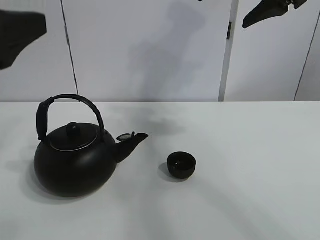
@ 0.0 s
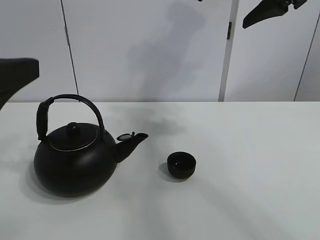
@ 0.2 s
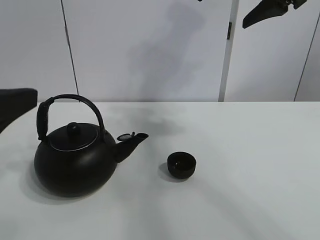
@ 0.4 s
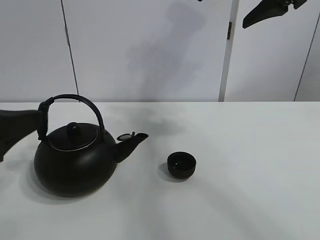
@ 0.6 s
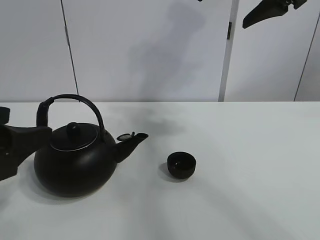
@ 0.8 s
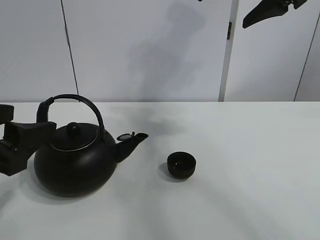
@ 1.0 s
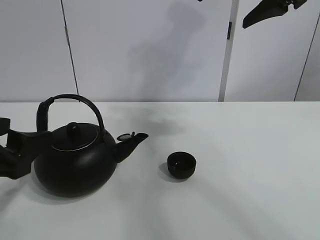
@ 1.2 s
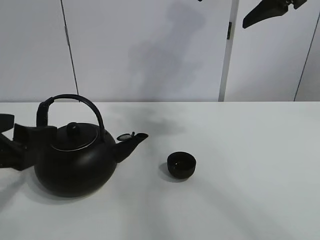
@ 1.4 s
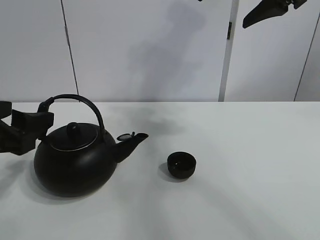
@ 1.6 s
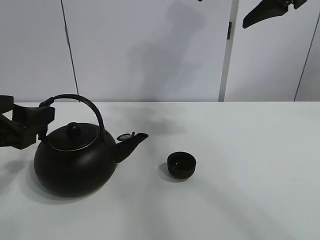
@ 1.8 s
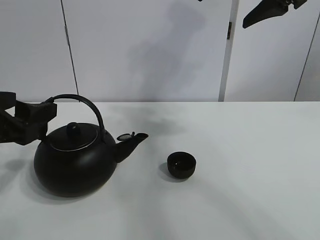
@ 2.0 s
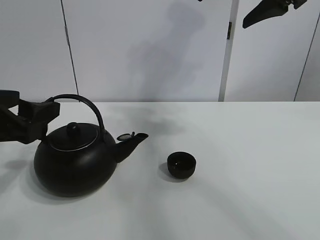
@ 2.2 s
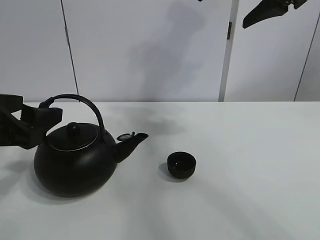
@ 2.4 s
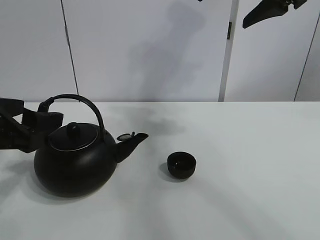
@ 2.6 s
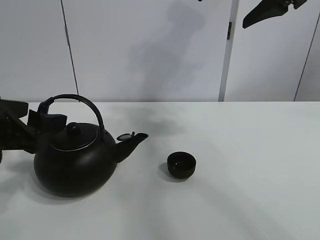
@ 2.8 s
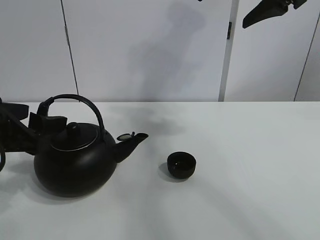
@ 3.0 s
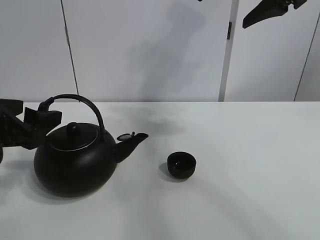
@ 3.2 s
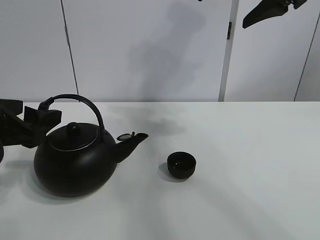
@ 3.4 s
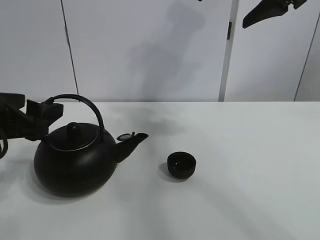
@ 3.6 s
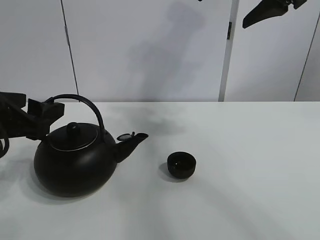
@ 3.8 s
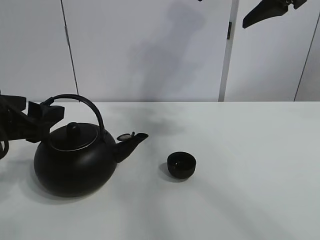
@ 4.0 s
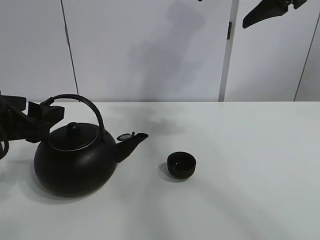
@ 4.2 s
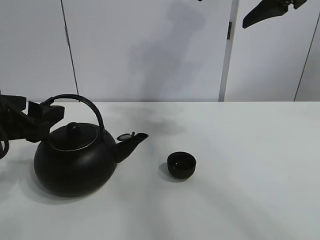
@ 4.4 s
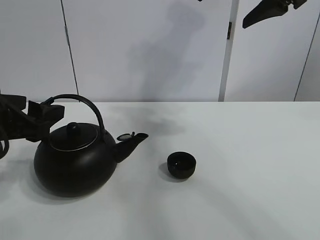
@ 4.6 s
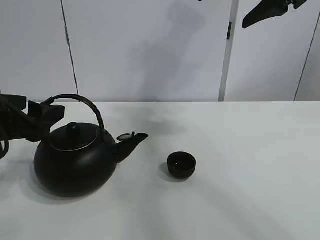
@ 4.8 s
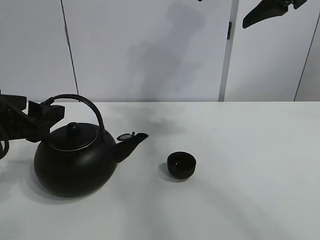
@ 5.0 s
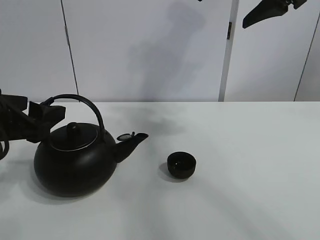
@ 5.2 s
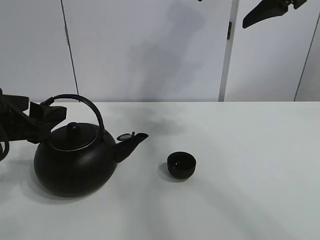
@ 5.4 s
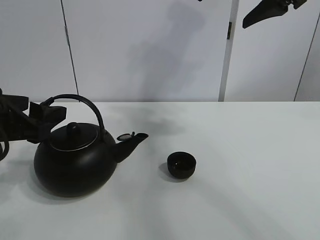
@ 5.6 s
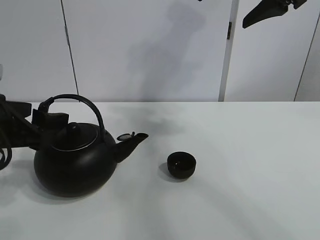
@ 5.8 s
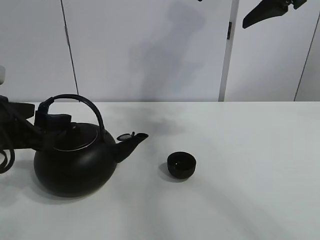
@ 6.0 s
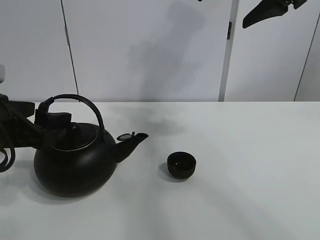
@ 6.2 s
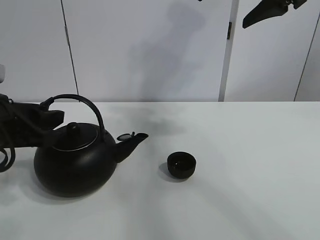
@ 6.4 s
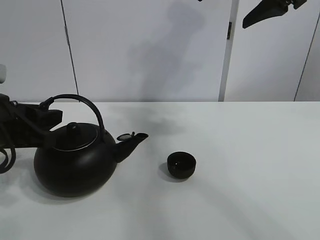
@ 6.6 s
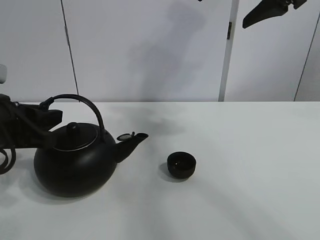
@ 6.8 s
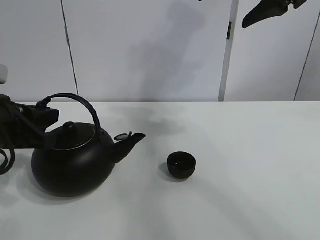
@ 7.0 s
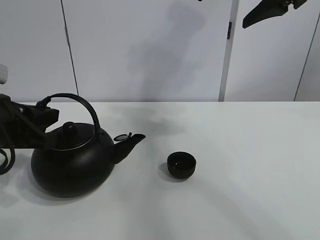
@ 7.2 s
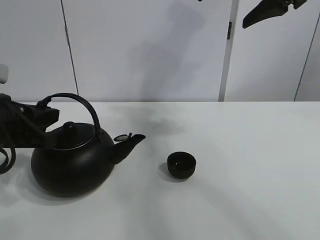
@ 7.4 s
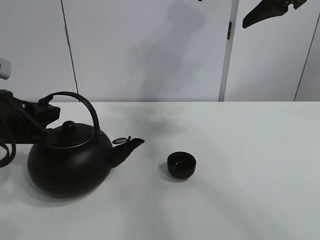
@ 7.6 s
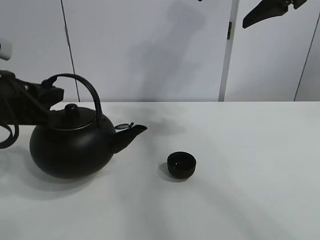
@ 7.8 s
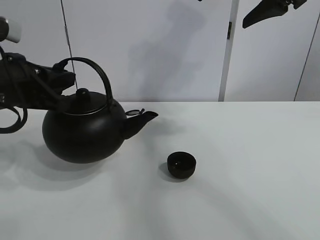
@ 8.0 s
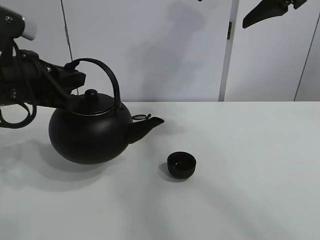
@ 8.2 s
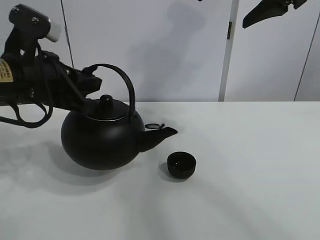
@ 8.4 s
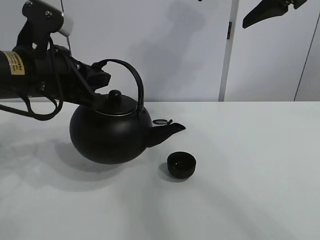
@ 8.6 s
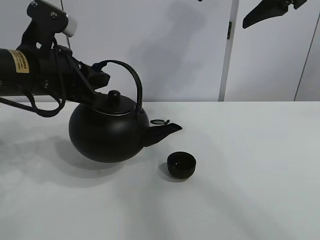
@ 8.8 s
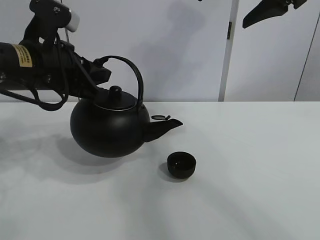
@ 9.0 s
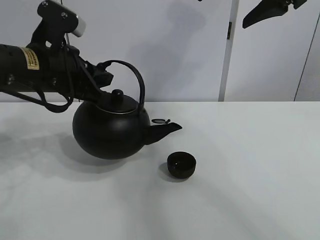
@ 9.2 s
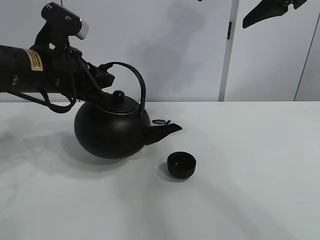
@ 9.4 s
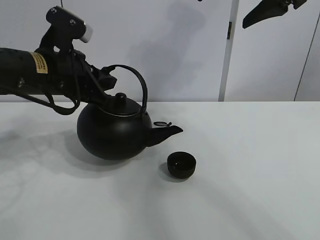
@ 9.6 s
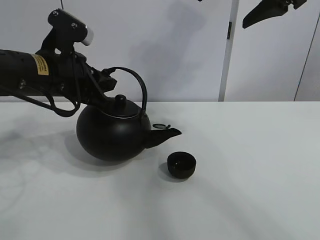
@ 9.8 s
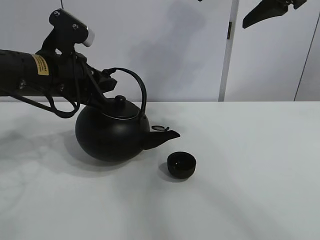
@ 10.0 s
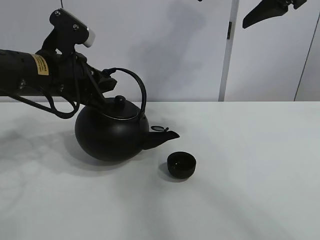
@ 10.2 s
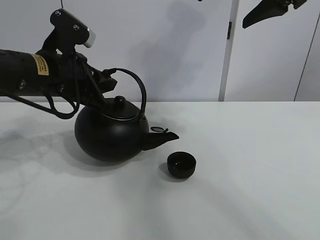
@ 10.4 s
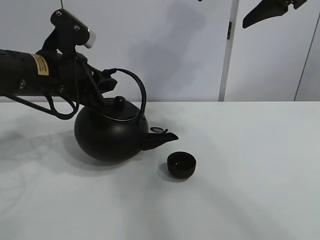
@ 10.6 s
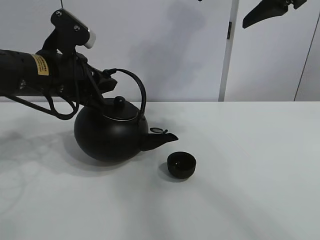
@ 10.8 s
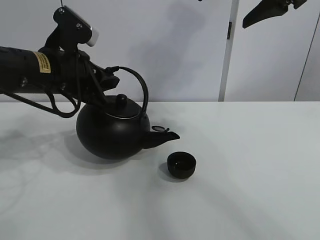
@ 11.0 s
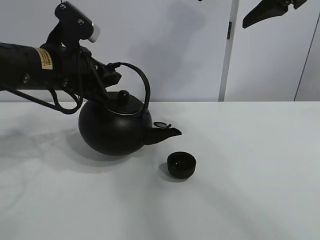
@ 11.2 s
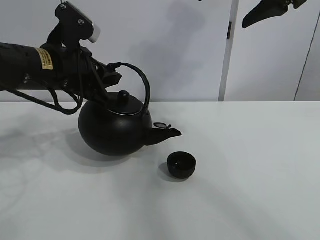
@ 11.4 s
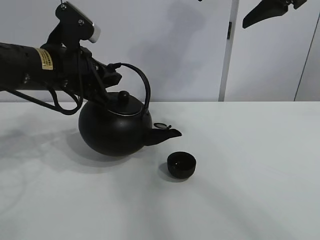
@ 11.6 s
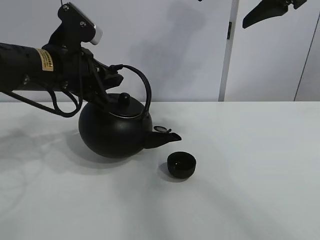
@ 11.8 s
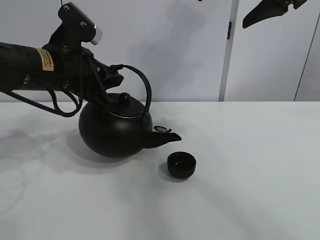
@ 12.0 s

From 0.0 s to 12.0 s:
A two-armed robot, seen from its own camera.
Task of the whole recording: pour tea into the teacup.
Step, from 0.0 s to 6.8 s: Pick up the teapot with the left gripper.
From 0.0 s to 1.6 s: The left gripper is displaced downward by roughly 10 cm.
From 1.6 s to 4.4 s: The grippers move only a little.
From 4.4 s to 6.0 s: Neither gripper changes place.
From 6.0 s to 7.6 s: The left gripper closes up.
From 7.6 s to 9.0 s: The left gripper goes approximately 10 cm to the right, upward and forward.
From 9.0 s to 12.0 s: There are only small adjustments of the grippers.

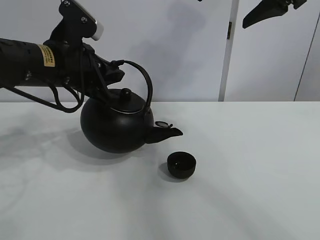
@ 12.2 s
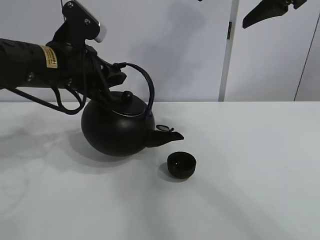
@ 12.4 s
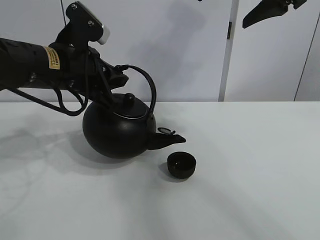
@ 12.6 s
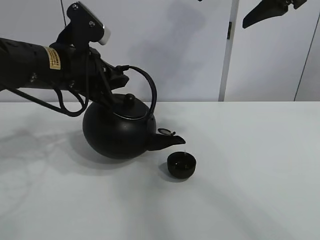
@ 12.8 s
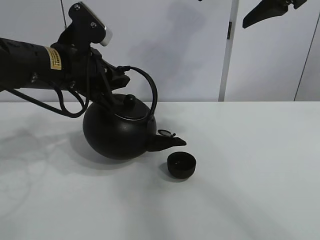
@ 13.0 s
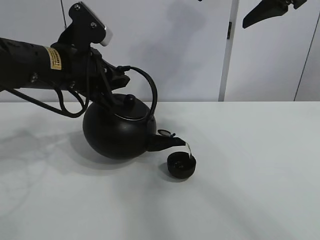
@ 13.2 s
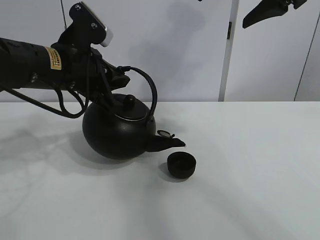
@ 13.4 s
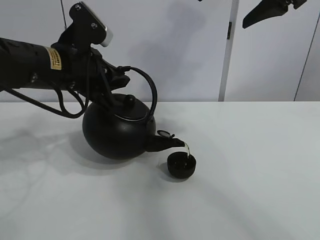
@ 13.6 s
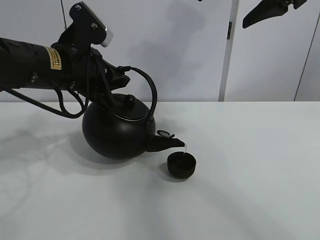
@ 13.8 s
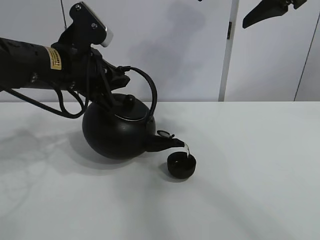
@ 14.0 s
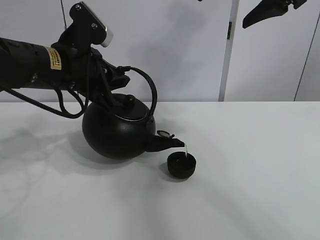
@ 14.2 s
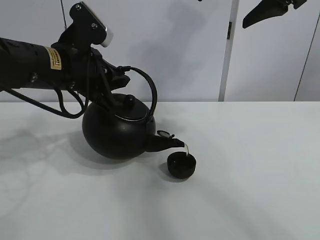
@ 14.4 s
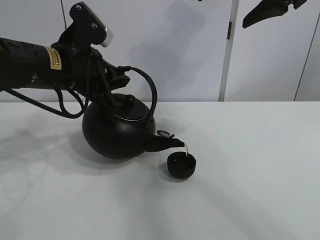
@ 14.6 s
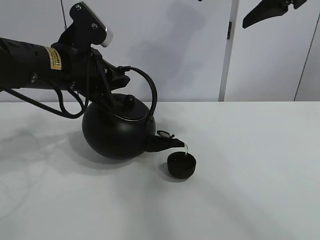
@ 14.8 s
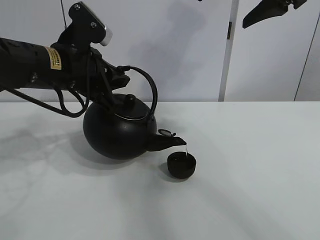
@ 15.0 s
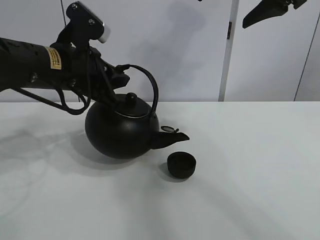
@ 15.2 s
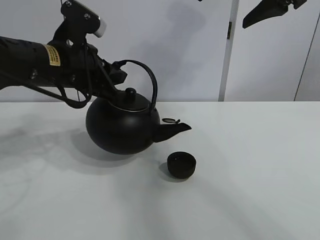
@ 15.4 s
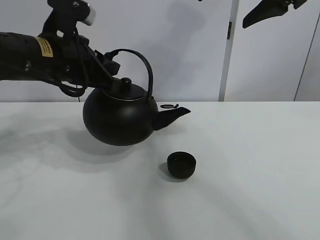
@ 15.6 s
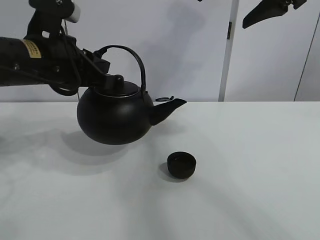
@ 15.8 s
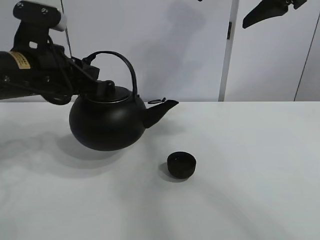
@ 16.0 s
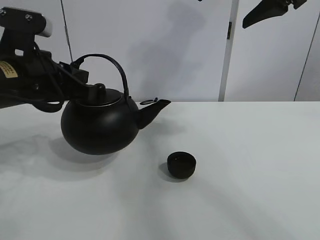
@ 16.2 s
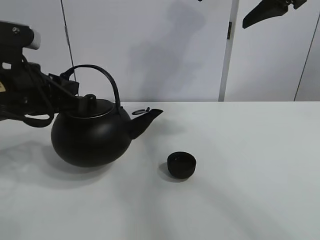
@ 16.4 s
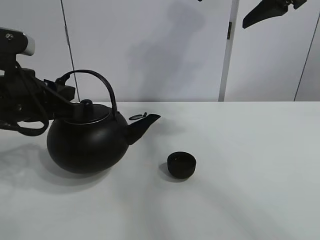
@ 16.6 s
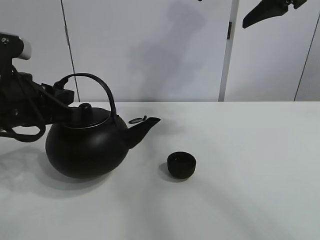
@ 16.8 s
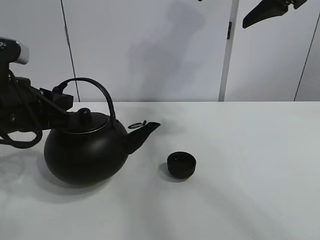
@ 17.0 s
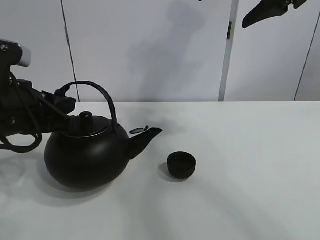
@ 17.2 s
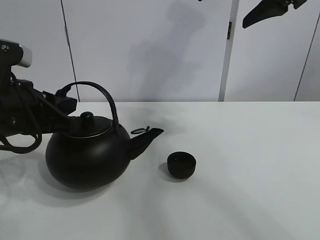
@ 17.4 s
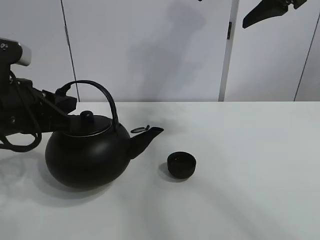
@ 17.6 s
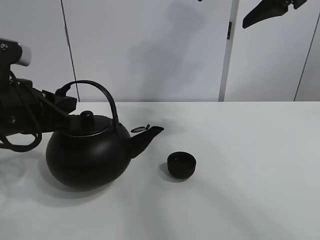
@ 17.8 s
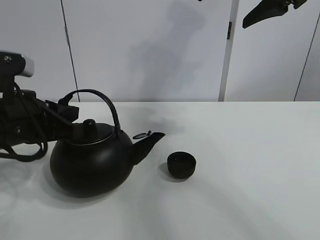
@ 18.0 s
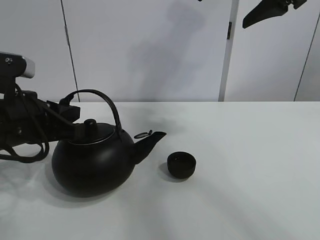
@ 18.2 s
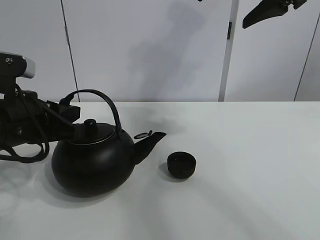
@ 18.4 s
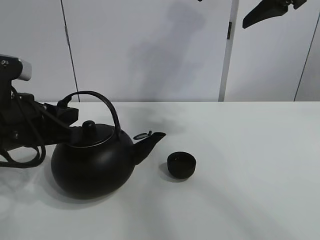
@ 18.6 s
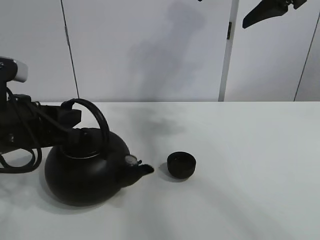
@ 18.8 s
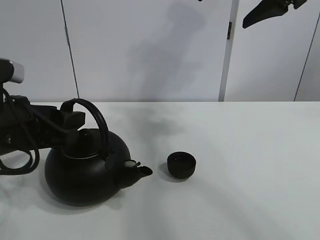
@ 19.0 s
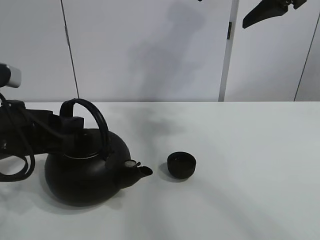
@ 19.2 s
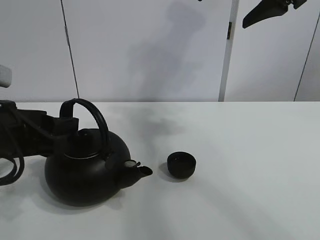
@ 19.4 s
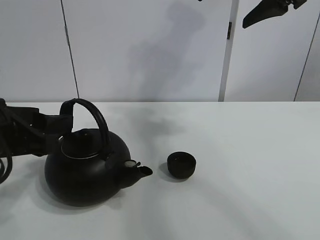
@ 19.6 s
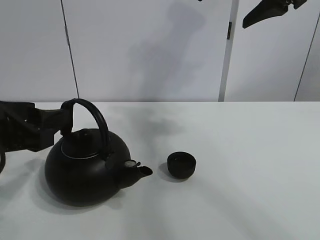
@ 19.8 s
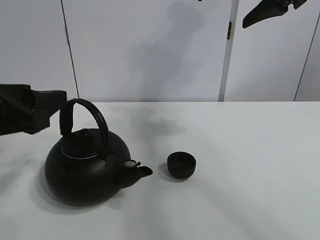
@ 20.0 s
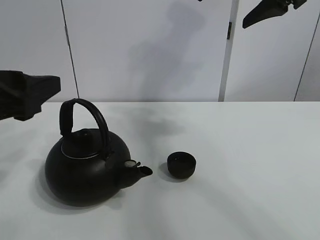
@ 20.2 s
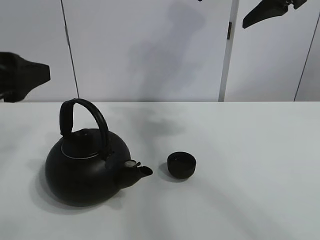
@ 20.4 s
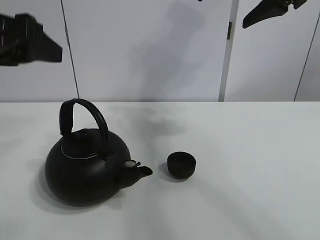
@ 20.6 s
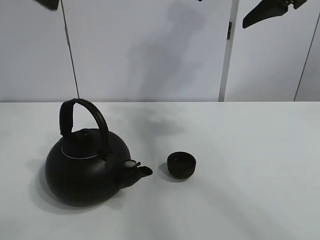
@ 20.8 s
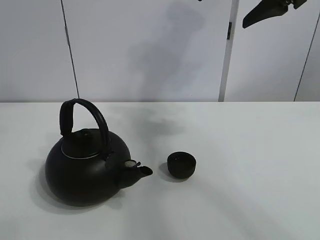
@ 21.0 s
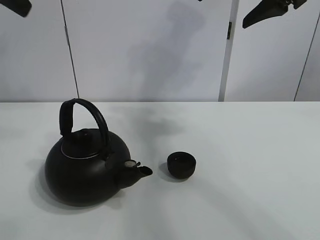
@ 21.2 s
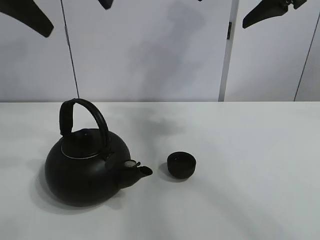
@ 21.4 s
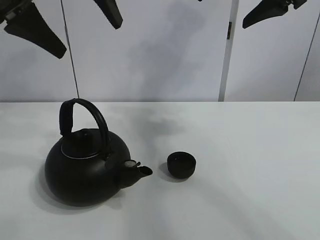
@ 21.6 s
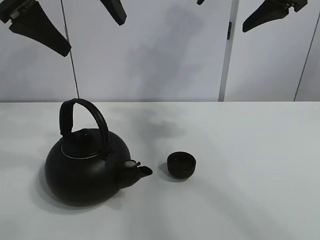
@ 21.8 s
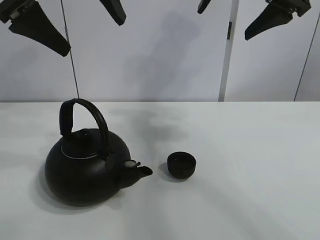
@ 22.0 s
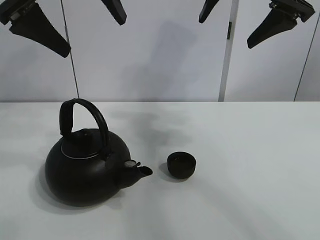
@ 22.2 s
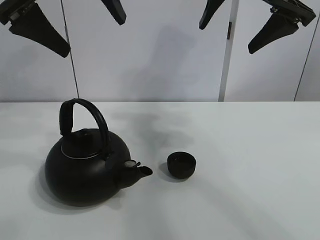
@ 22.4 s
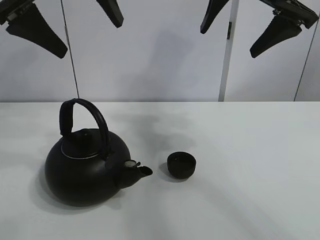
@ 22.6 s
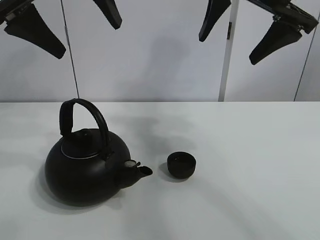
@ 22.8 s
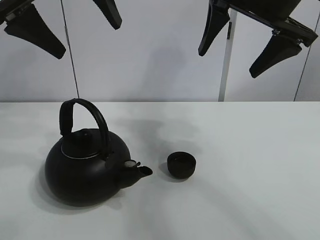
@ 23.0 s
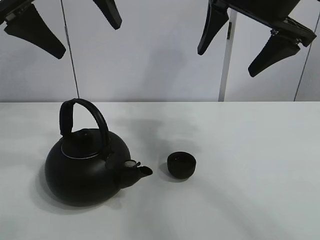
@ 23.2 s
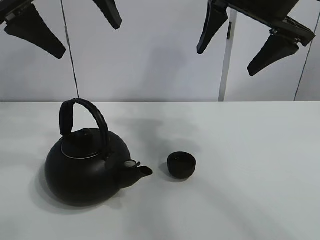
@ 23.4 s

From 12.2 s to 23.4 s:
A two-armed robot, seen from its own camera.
Task of the whole recording: pour tea into the teacup.
Step, from 12.2 s to 15.0 s: Pour tea into the teacup with the left gripper.
From 12.2 s to 13.8 s: Both grippers stay put.
From 13.8 s to 15.4 s: There are only small adjustments of the grippers.
From 15.4 s to 17.0 s: The left gripper goes some 10 cm backward and to the left.
From 17.0 s to 18.6 s: The grippers stay close to where they were, moving slightly.
From 18.6 s to 20.2 s: The left gripper travels upward by approximately 5 cm, and opens up.
From 20.2 s to 21.8 s: The left gripper moves upward, forward and to the right, some 20 cm.
